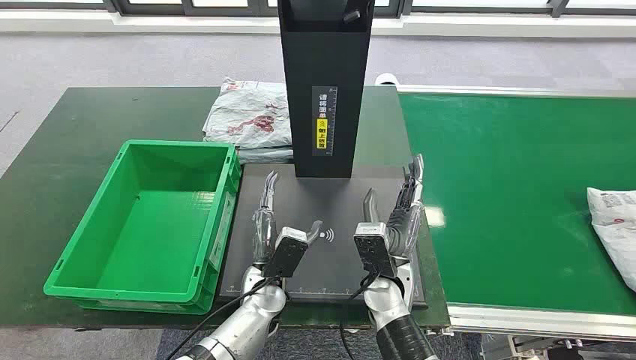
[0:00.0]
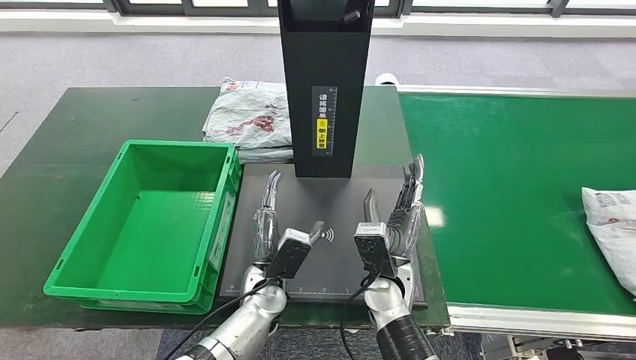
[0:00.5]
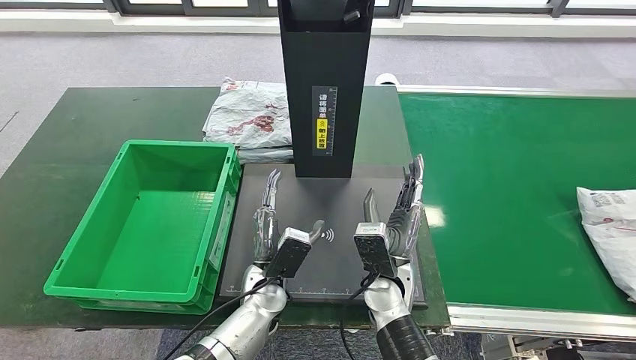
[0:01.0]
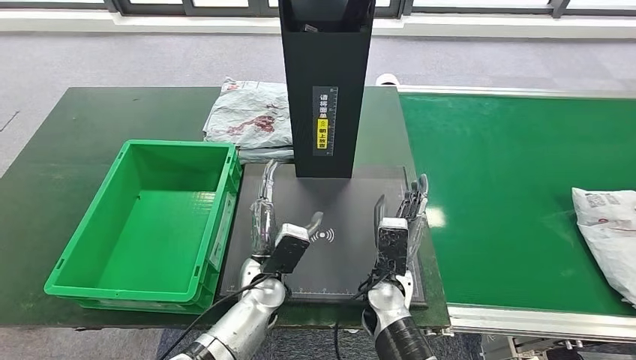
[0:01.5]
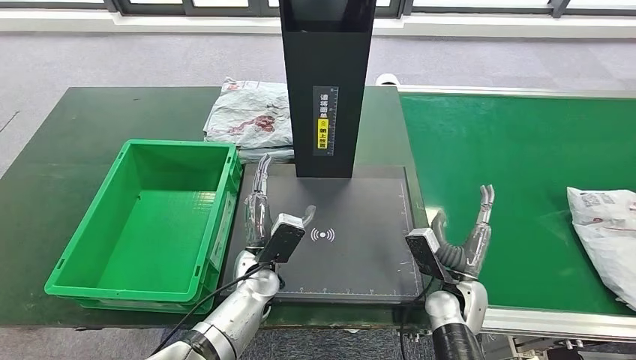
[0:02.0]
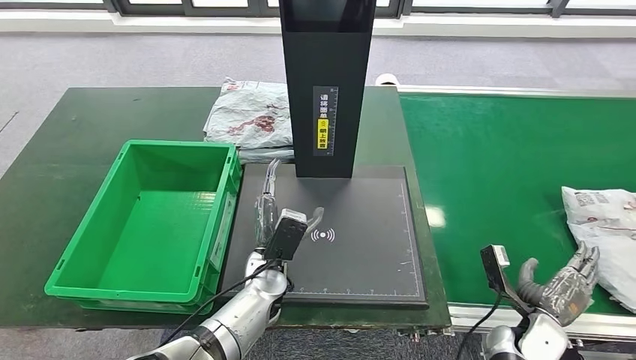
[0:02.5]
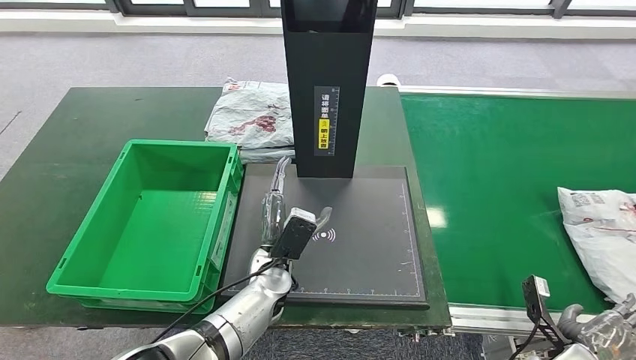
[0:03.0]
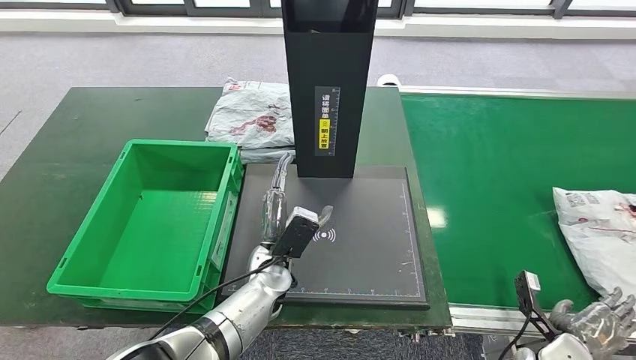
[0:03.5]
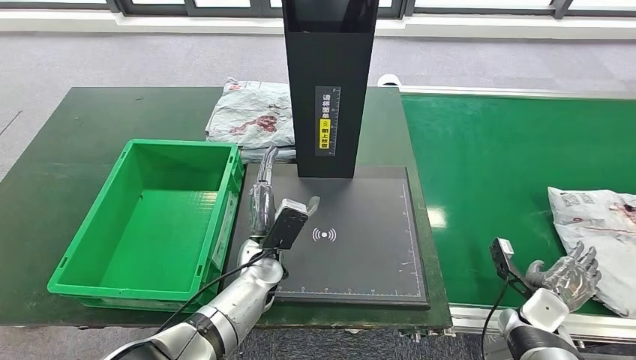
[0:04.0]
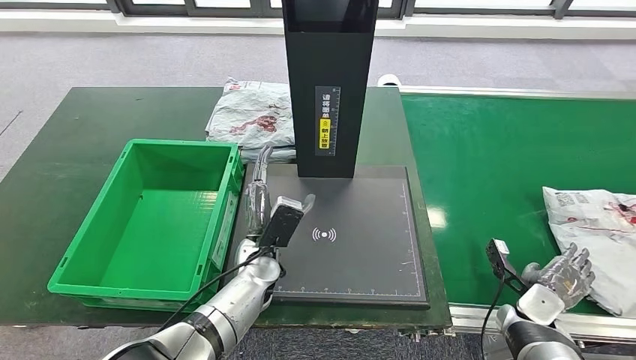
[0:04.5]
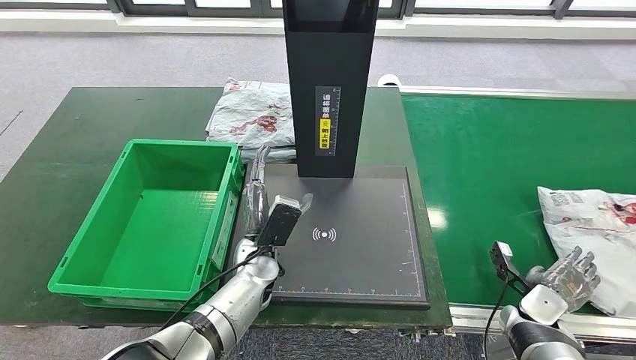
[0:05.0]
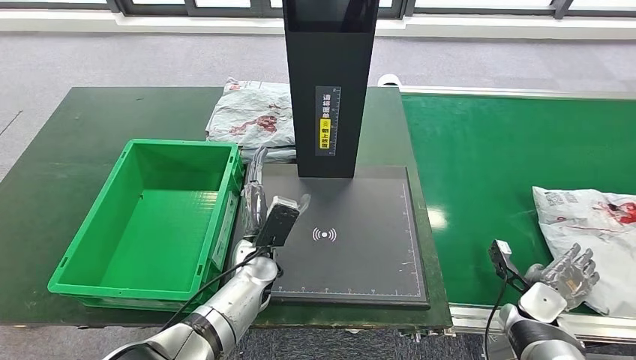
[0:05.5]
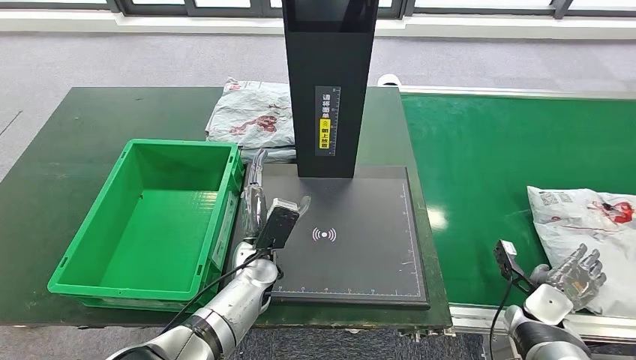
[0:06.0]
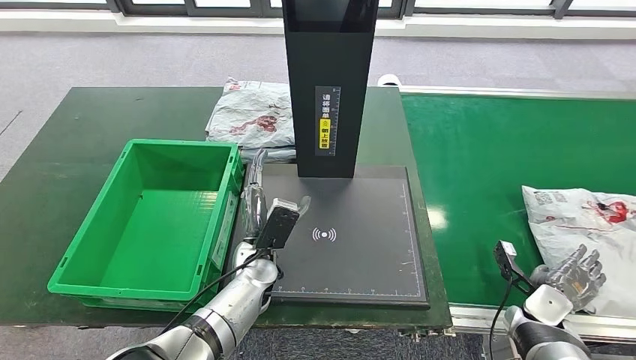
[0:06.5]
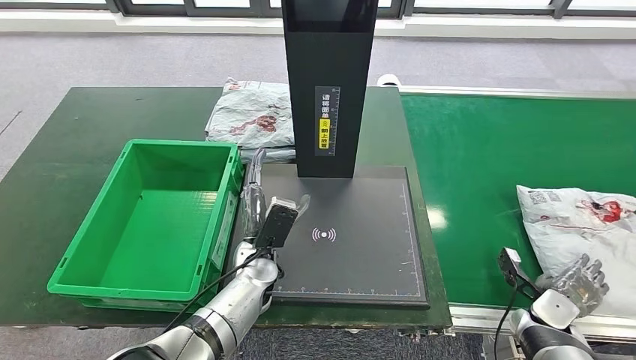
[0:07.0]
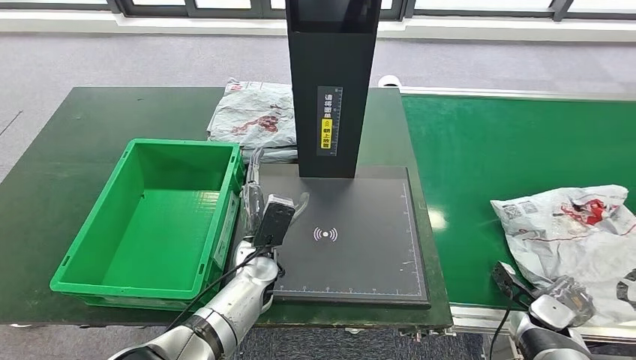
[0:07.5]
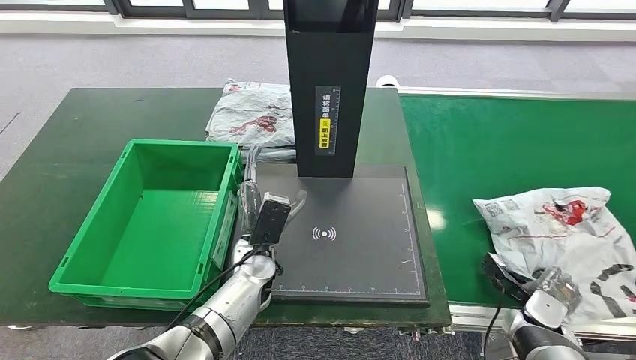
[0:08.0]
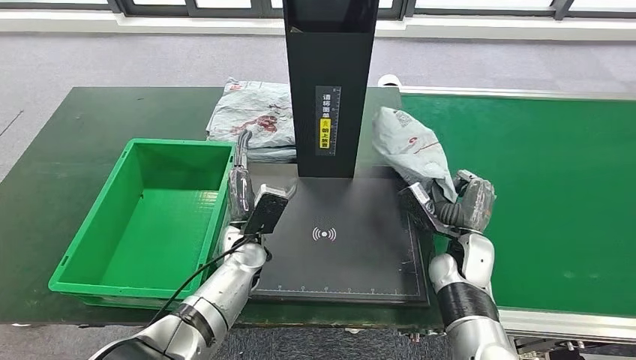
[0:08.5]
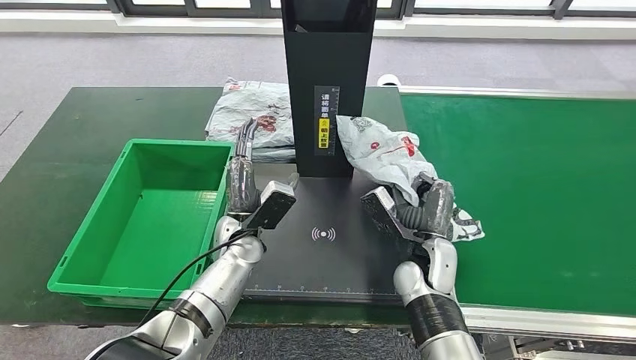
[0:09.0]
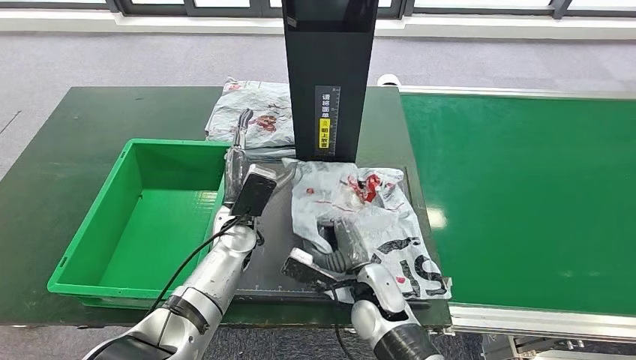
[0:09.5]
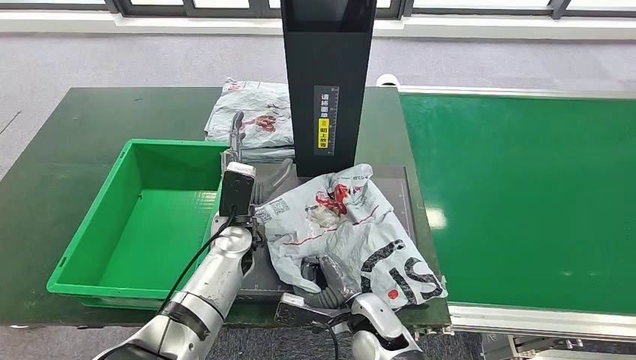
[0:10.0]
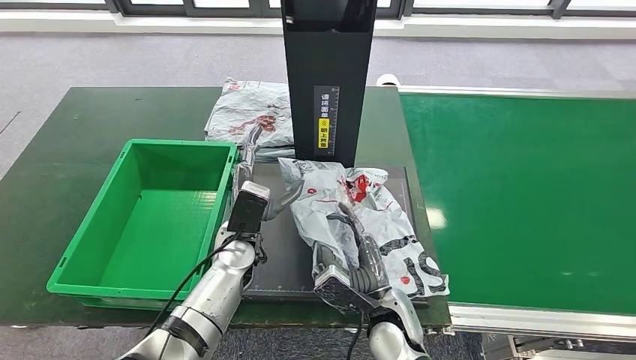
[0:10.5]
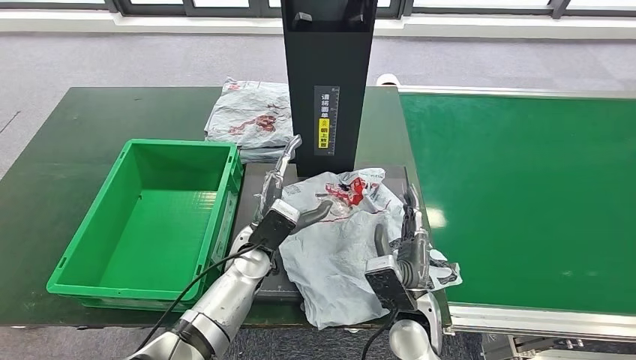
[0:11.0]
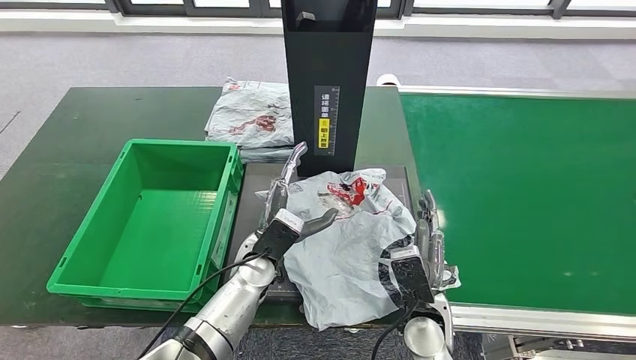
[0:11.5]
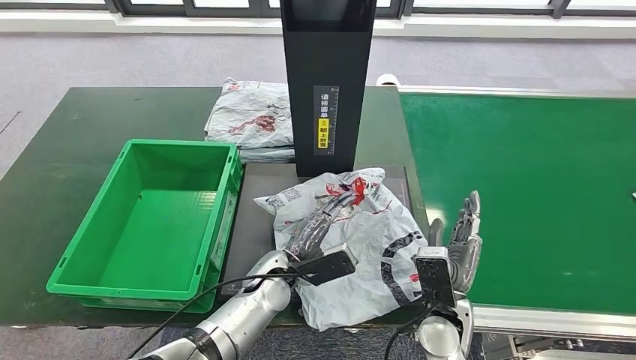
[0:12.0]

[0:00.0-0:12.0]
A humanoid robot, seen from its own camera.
Step, 0:00.0 to 0:08.0: Take the parcel off the conveyor belt.
Step, 0:08.5 to 0:11.5: Place the parcel onto the inbound machine.
0:02.0 to 0:04.0: The right hand travels to the right by about 15 cm.
0:04.0 to 0:06.0: There are only small adjustments of the hands.
0:10.0 to 0:12.0: The right hand travels to the right by about 10 cm; the left hand goes approximately 10 cm backward, downward and to the right.

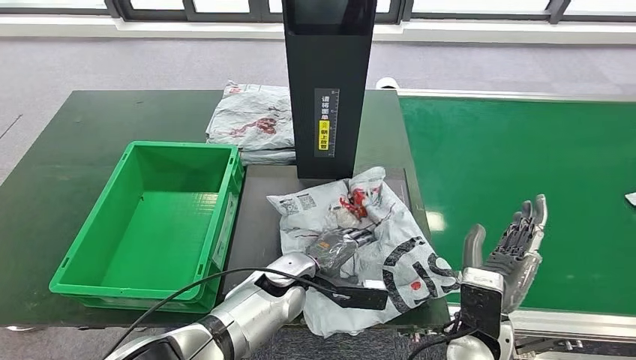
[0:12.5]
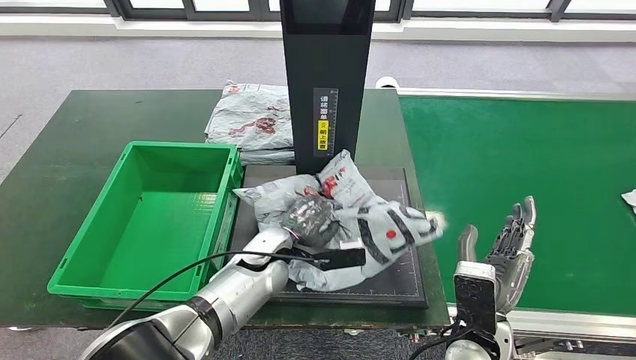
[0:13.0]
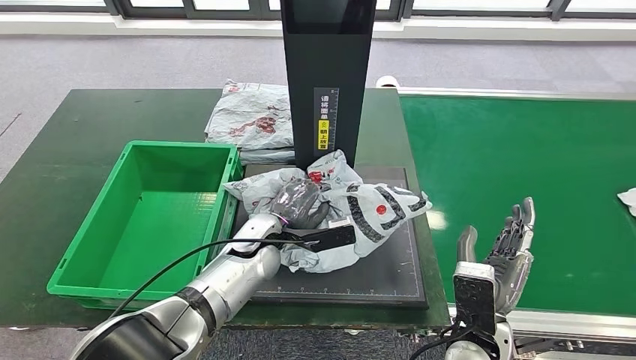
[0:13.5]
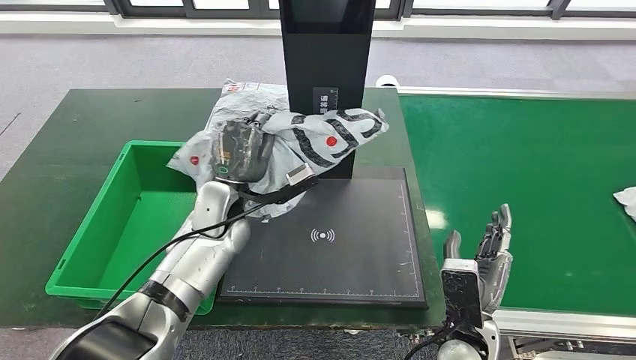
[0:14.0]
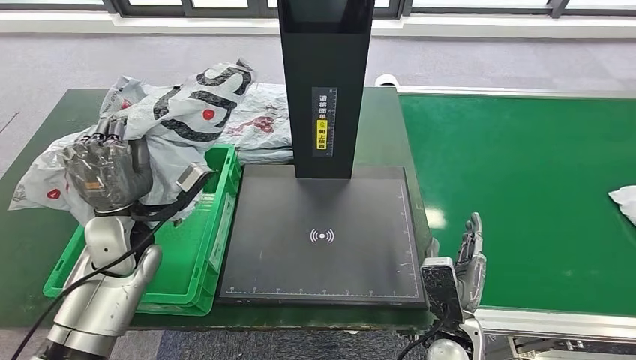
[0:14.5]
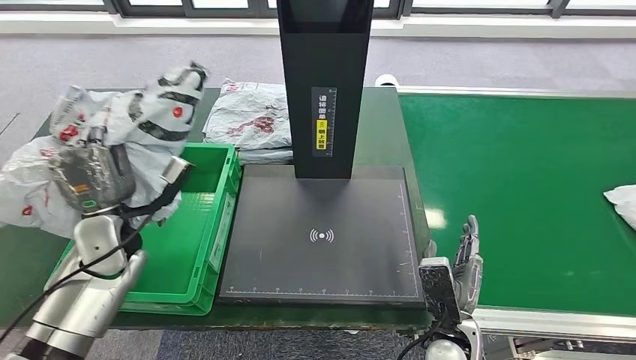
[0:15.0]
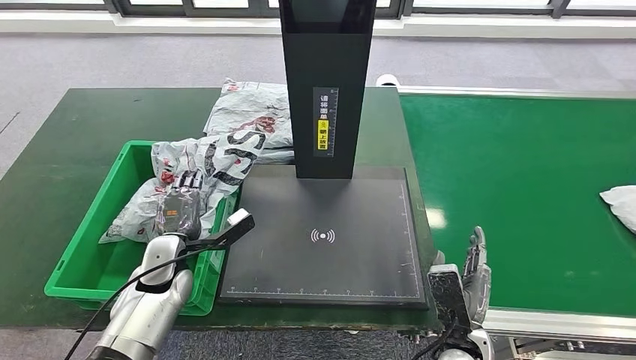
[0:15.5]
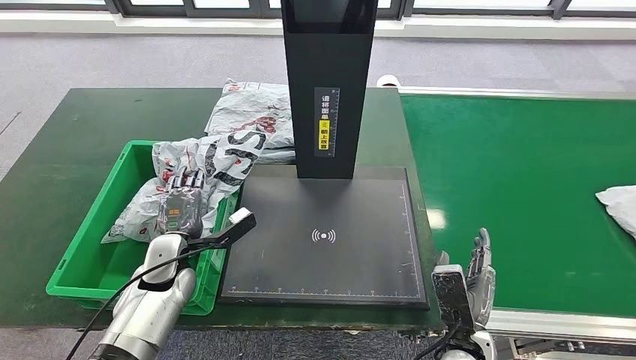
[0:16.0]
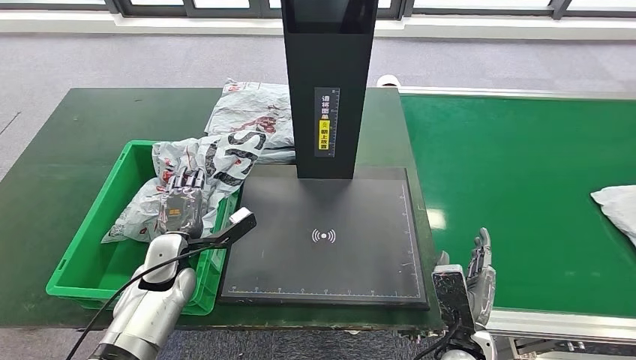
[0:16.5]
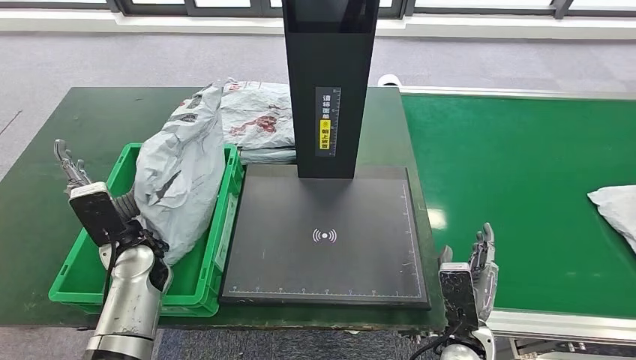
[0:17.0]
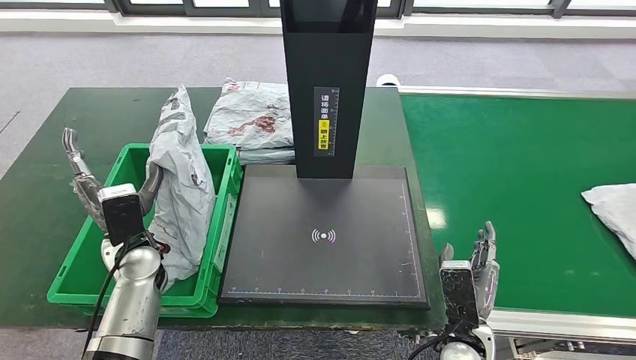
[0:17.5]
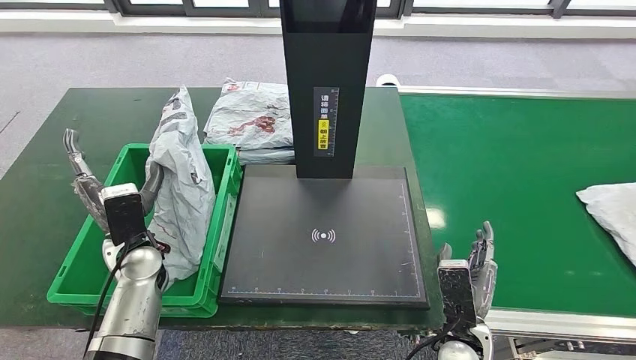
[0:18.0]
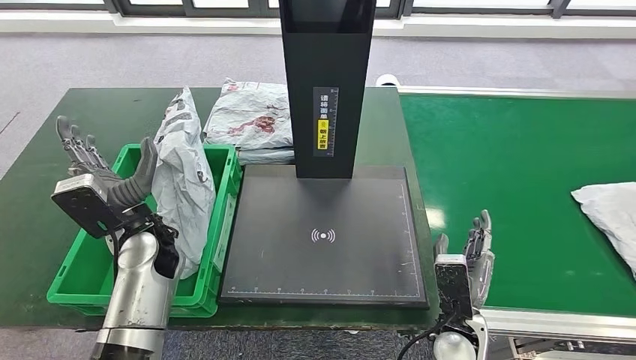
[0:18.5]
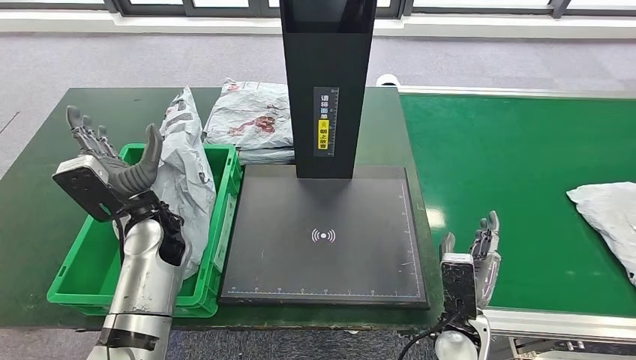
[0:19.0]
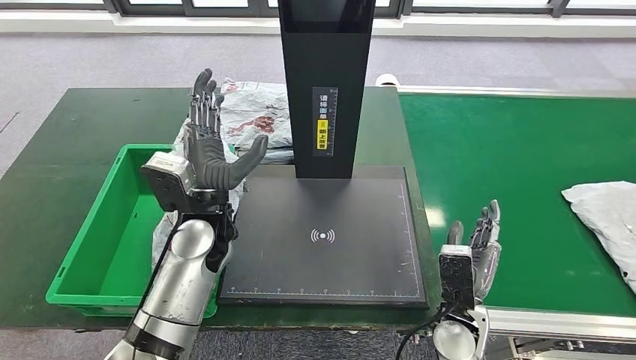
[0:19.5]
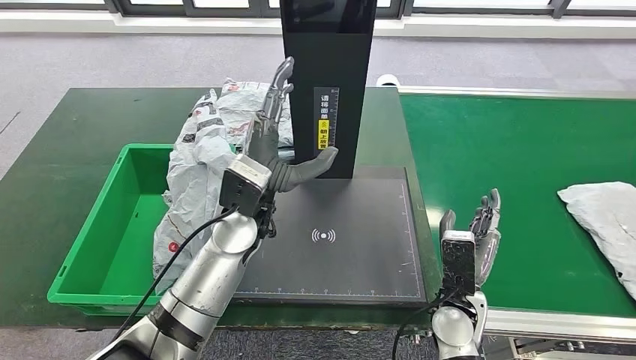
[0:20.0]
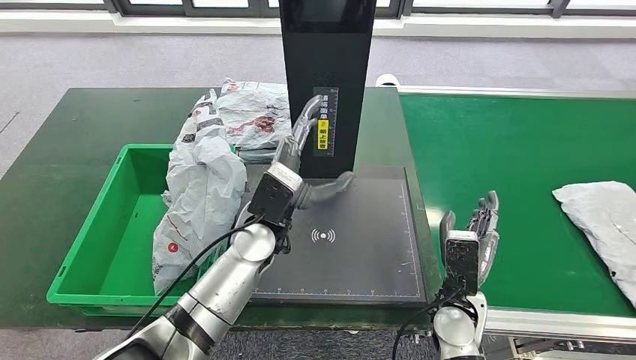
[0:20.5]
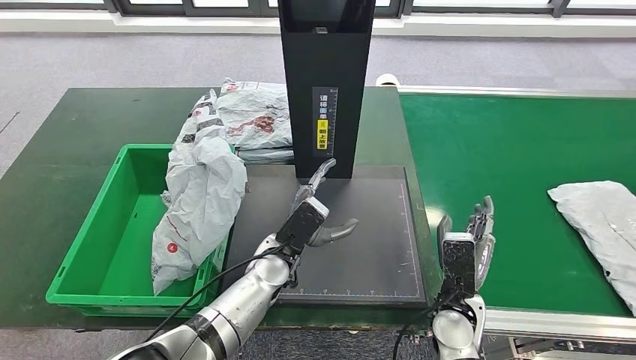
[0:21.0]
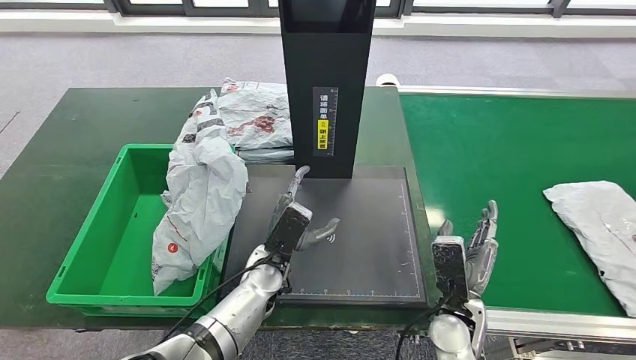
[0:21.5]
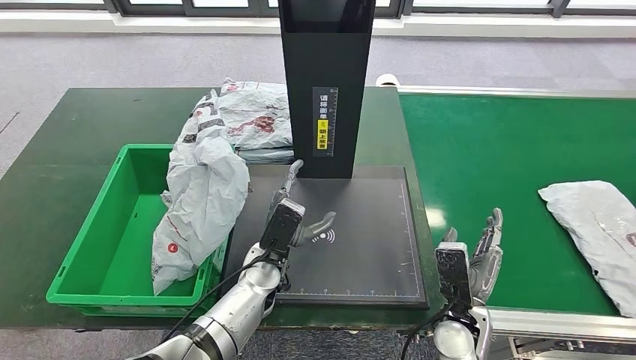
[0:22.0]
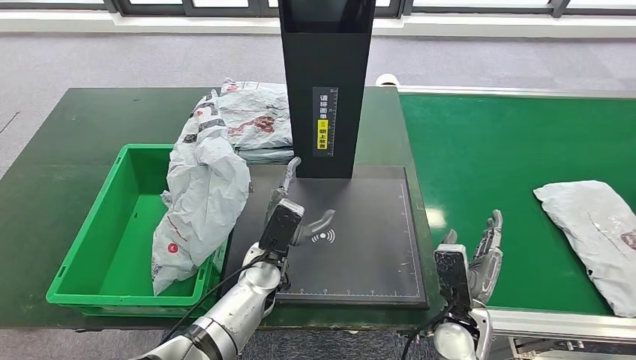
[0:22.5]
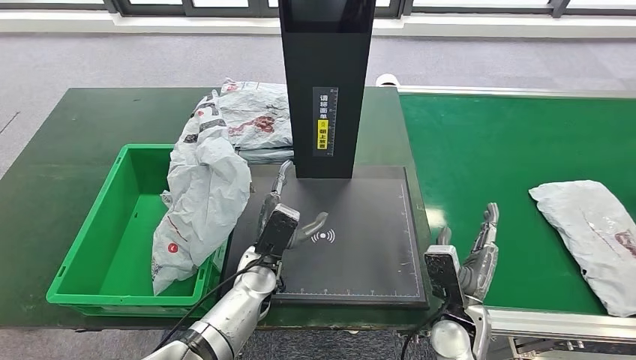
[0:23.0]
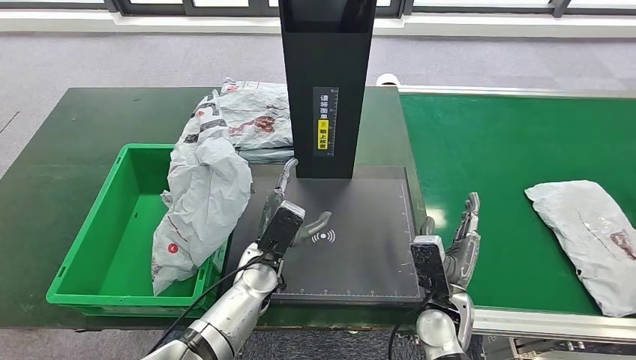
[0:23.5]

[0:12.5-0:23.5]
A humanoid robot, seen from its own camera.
Step, 0:12.5 to 0:13.5: Pick up the parcel from the inbound machine.
Step, 0:14.0 to 0:20.5: Put the parcel inside the courier box.
0:16.0 to 0:18.0: The left hand shifts some 5 cm upward.
0:18.0 to 0:20.0: The left hand travels to the right and upward by some 20 cm. Meanwhile the right hand travels forward by some 5 cm.
0:20.0 to 0:21.5: The left hand heads downward, covering approximately 15 cm.
0:21.5 to 0:23.5: The hands move only a little.
